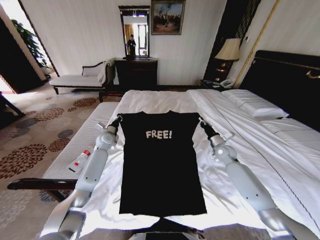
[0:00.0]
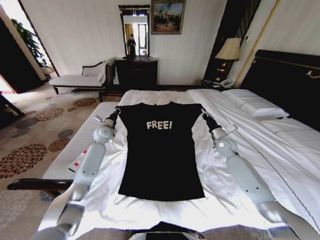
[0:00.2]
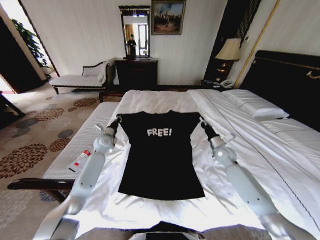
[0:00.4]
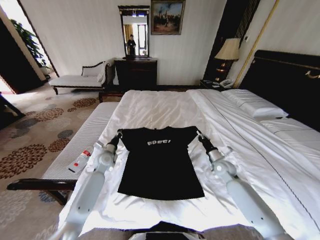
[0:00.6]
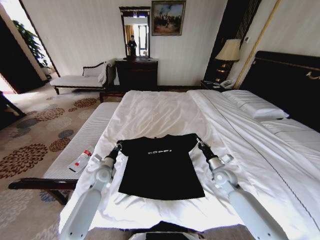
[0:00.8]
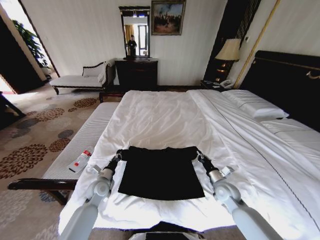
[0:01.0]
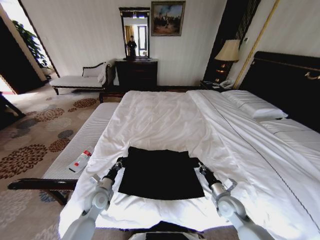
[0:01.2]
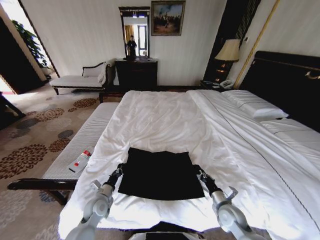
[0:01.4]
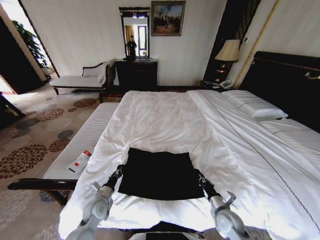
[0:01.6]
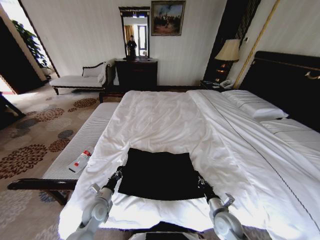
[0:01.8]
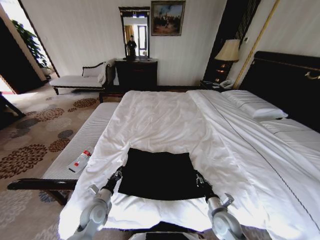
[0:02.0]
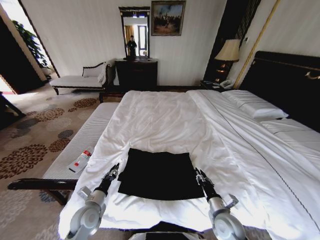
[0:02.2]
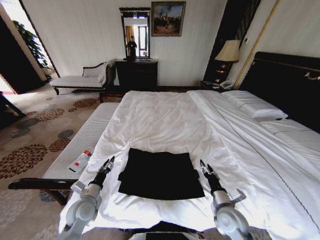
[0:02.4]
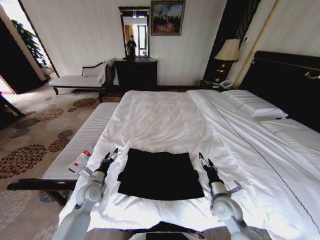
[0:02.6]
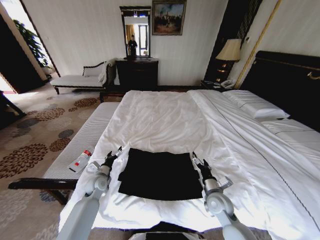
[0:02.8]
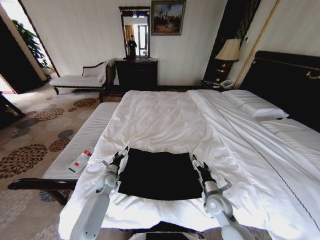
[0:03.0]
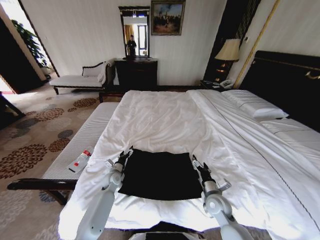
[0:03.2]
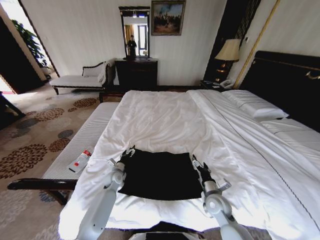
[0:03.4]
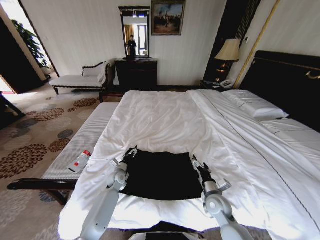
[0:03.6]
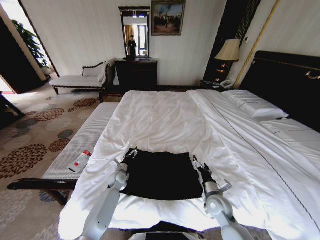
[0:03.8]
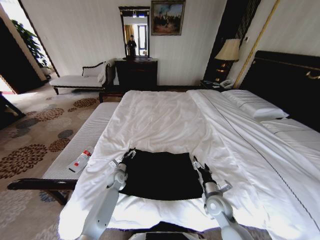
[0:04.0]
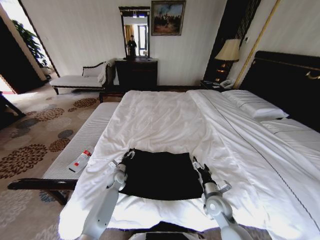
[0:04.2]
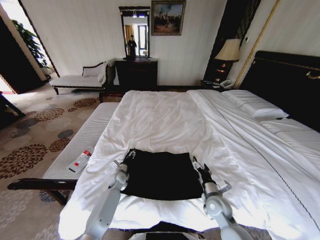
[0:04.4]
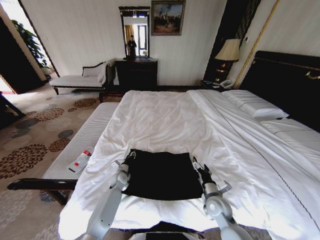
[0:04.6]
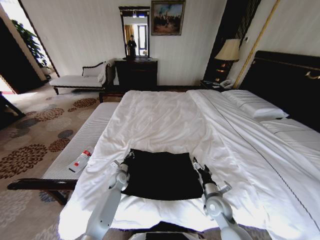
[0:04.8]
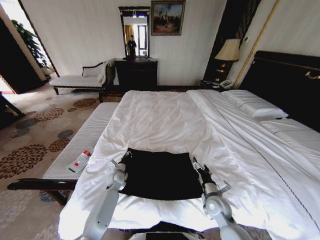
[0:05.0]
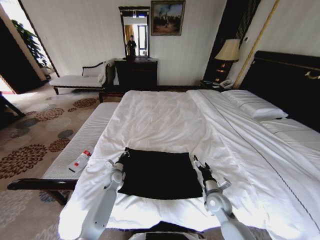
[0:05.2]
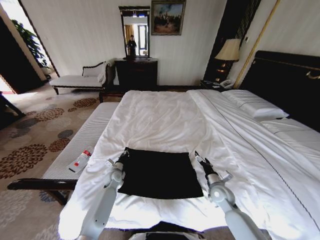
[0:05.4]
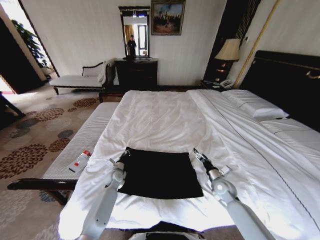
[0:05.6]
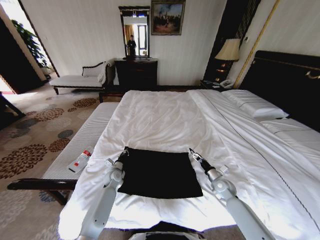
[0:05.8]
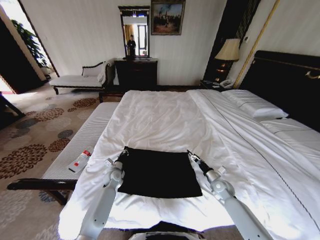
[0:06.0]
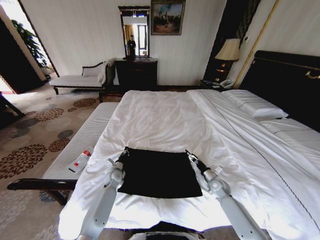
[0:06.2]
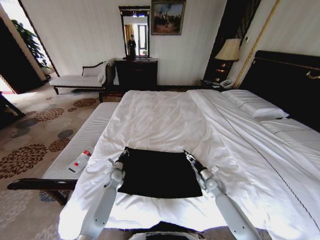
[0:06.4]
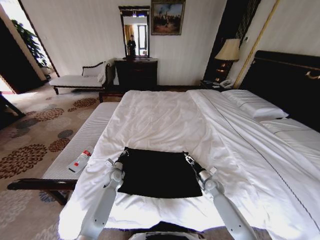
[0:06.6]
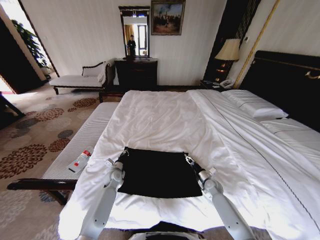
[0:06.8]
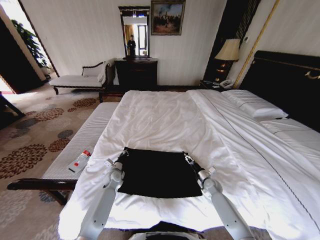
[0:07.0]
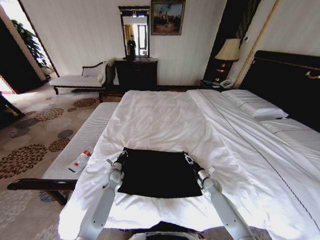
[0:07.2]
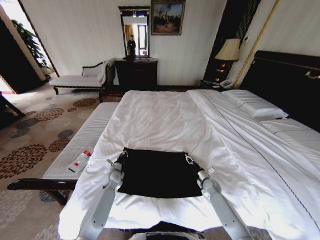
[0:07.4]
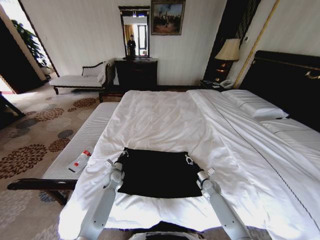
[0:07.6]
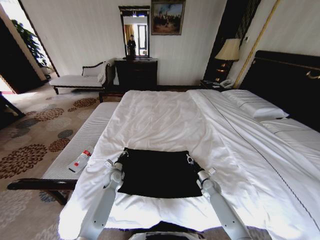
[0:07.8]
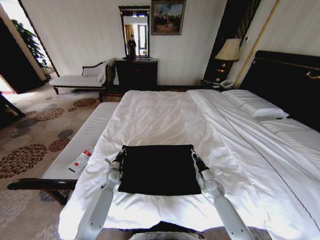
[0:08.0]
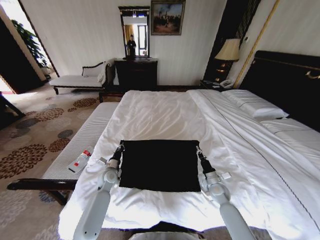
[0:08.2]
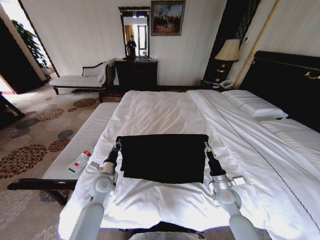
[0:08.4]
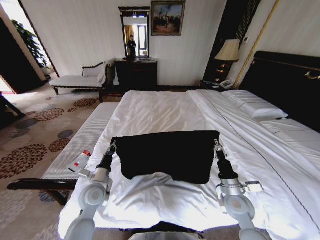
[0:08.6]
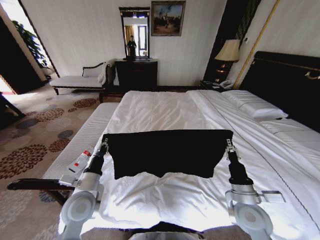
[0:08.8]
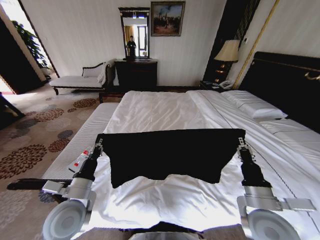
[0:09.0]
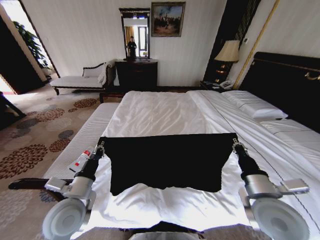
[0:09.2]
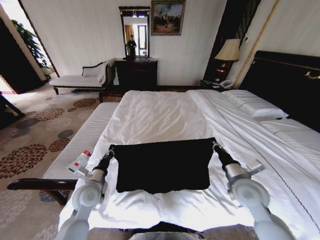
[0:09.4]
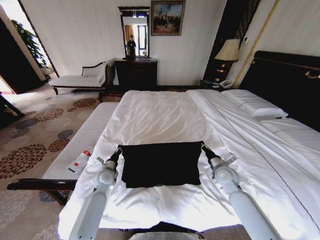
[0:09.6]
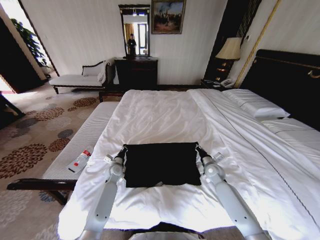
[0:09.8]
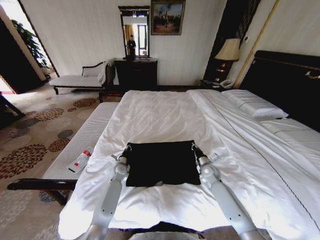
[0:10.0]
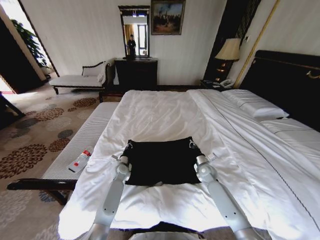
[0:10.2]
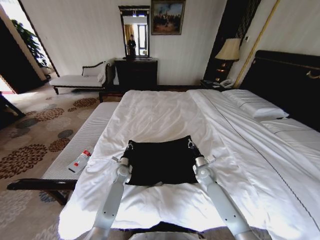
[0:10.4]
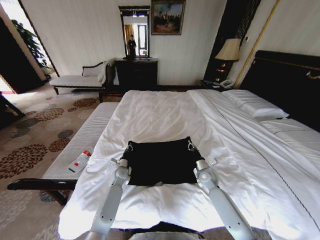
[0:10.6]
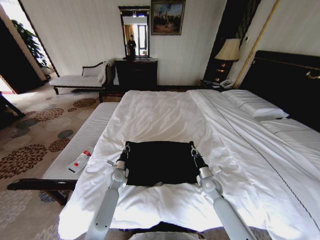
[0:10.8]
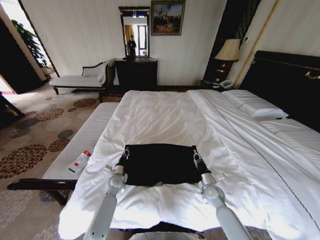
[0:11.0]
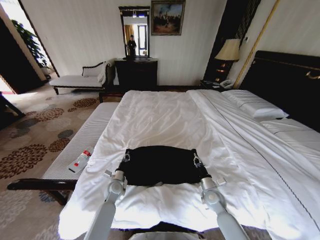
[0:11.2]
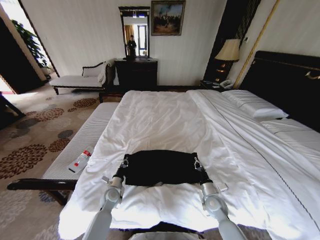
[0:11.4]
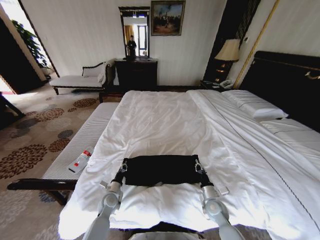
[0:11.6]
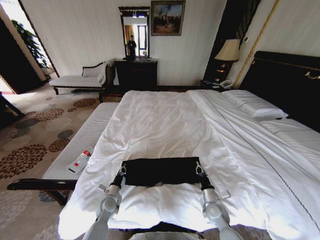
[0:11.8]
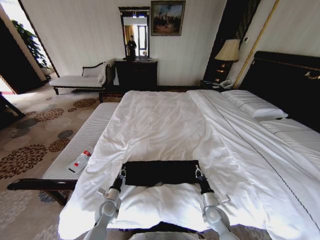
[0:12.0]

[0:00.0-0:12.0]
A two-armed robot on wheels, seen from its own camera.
Task of the whole recording: Fold the clothes on the bed.
0:00.0 to 0:01.6: The two grippers go about 30 cm backward and downward.
0:01.6 to 0:03.0: The left gripper travels forward by approximately 10 cm, and opens up, while the right gripper shifts by some 10 cm, and opens.
0:03.0 to 0:04.4: The left gripper ends up roughly 5 cm from where it was, and closes.
0:04.4 to 0:06.0: The left gripper closes its fingers. The right gripper is displaced to the right, forward and downward by roughly 15 cm.
0:06.0 to 0:07.6: The right gripper shifts some 5 cm downward, and closes its fingers.
0:07.6 to 0:09.0: Both grippers travel together upward and backward, about 35 cm.
0:09.0 to 0:10.4: Both grippers move forward and downward, about 35 cm.
0:10.4 to 0:12.0: Both grippers move backward, approximately 20 cm.

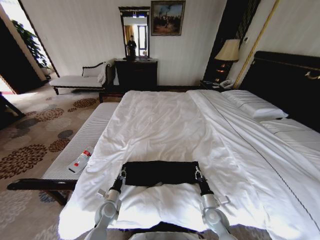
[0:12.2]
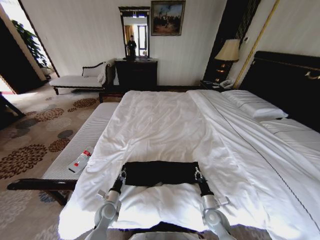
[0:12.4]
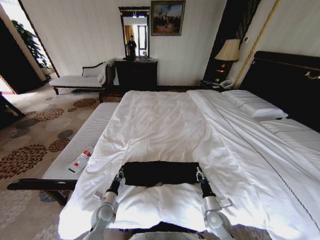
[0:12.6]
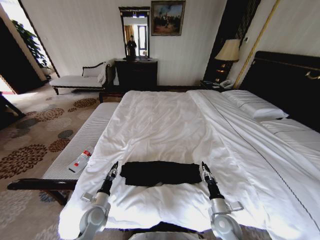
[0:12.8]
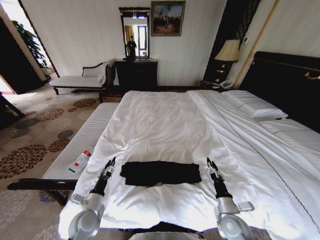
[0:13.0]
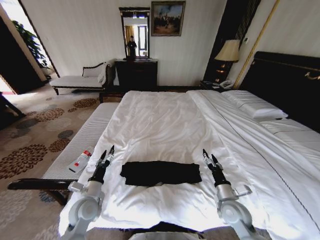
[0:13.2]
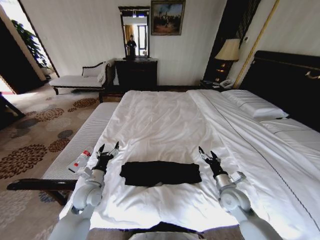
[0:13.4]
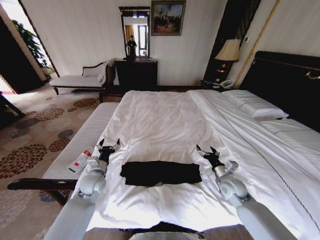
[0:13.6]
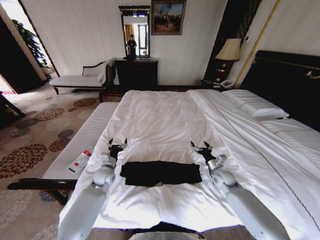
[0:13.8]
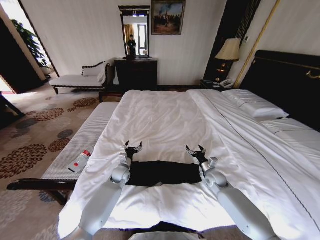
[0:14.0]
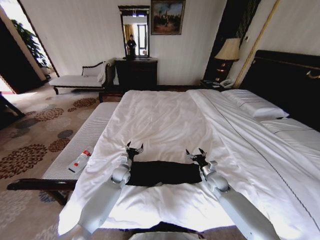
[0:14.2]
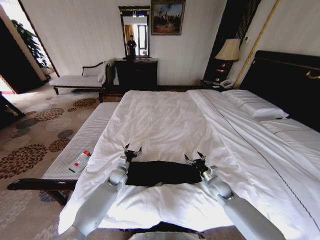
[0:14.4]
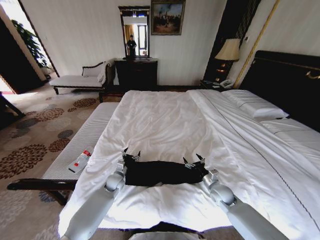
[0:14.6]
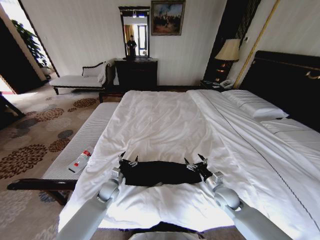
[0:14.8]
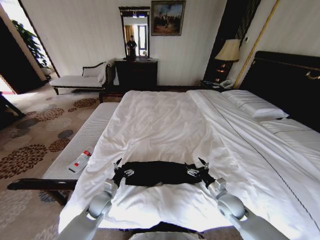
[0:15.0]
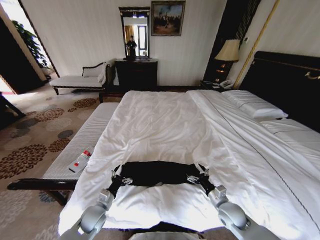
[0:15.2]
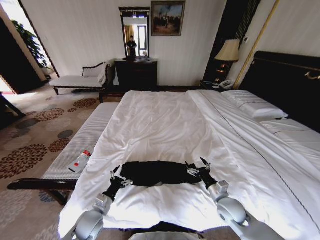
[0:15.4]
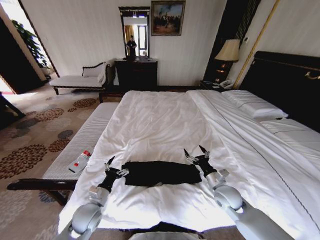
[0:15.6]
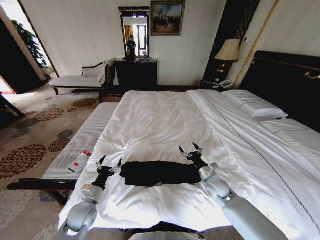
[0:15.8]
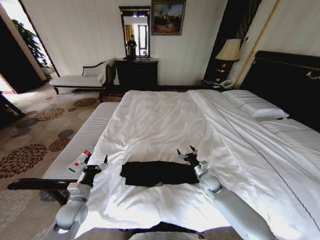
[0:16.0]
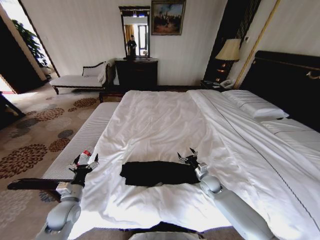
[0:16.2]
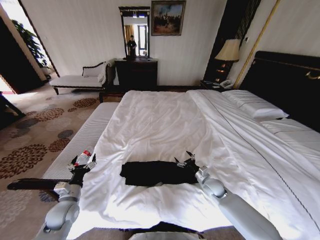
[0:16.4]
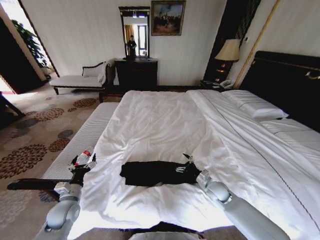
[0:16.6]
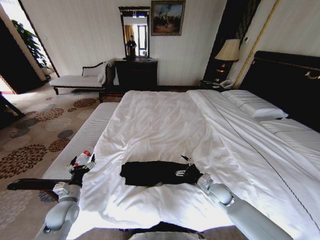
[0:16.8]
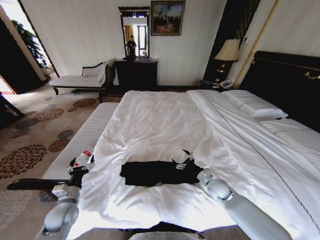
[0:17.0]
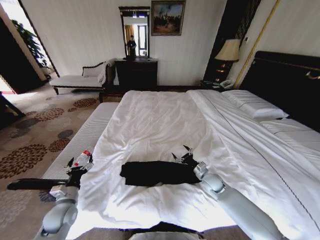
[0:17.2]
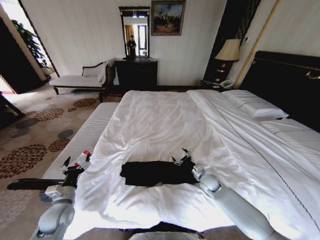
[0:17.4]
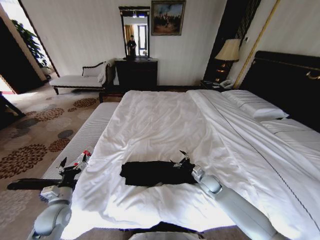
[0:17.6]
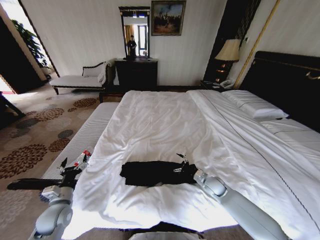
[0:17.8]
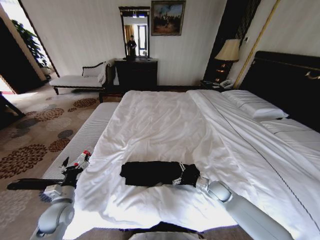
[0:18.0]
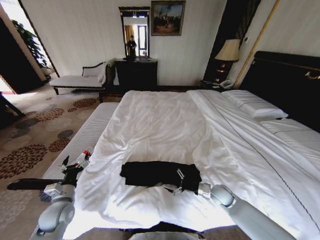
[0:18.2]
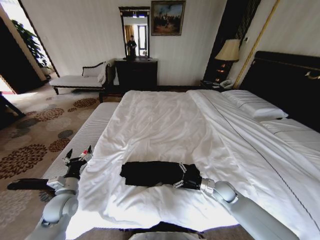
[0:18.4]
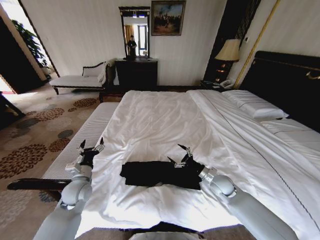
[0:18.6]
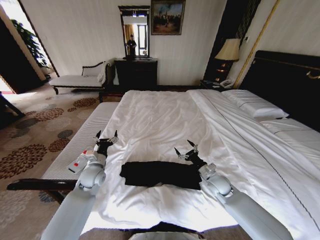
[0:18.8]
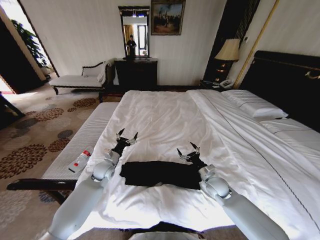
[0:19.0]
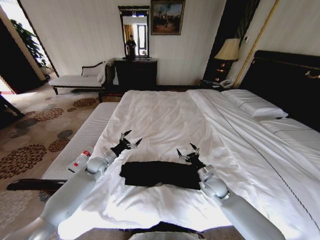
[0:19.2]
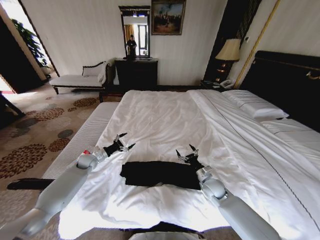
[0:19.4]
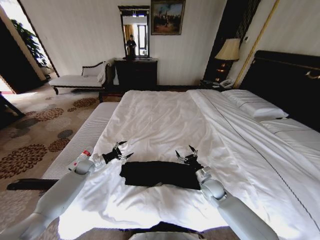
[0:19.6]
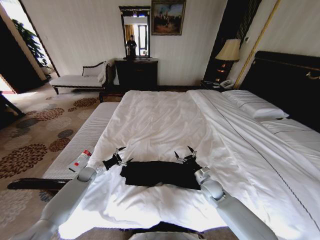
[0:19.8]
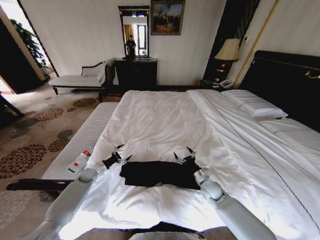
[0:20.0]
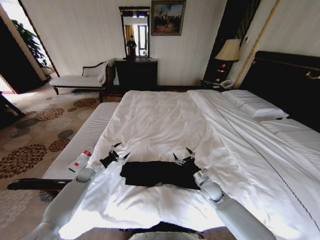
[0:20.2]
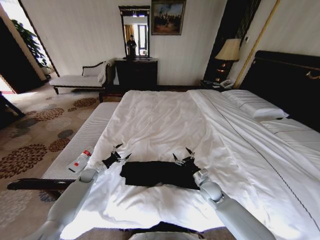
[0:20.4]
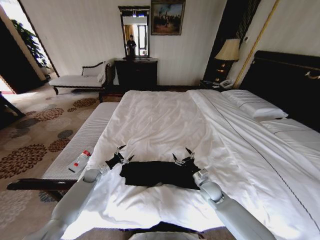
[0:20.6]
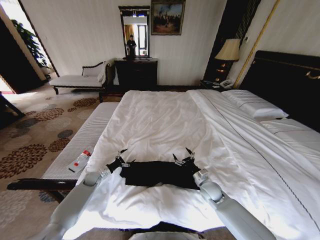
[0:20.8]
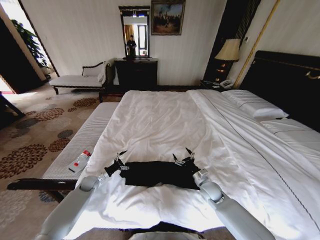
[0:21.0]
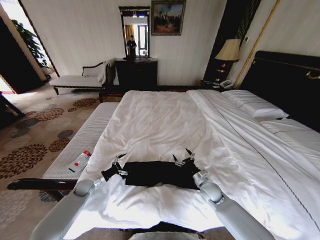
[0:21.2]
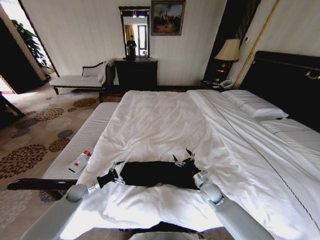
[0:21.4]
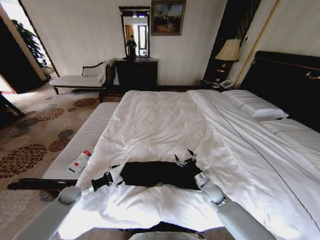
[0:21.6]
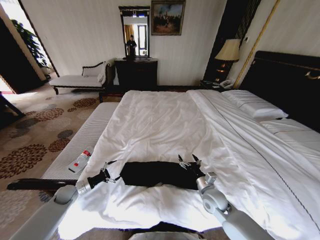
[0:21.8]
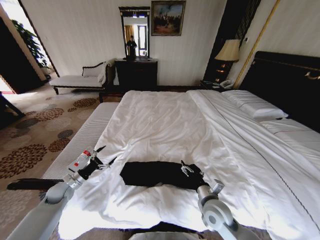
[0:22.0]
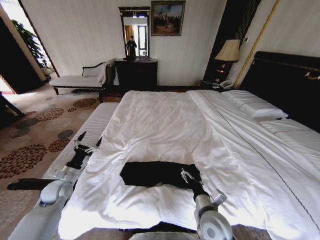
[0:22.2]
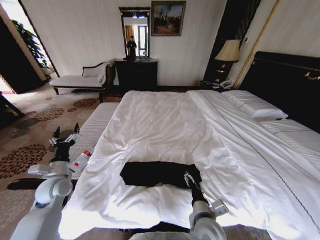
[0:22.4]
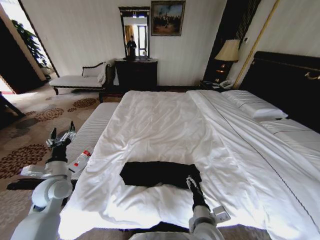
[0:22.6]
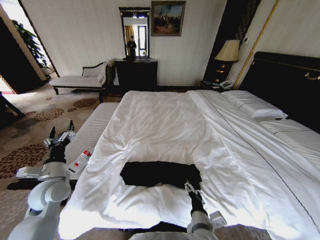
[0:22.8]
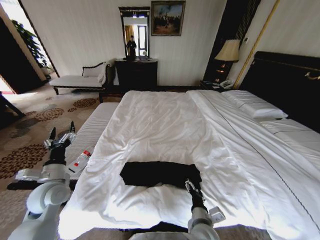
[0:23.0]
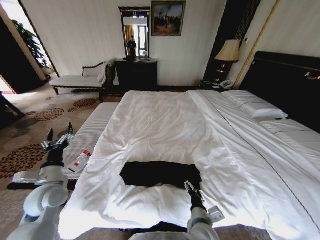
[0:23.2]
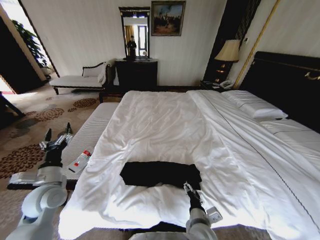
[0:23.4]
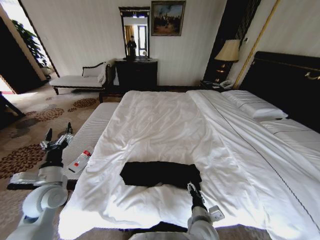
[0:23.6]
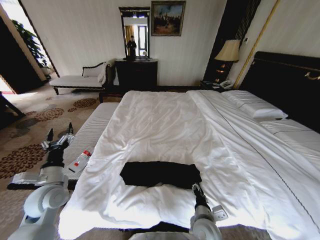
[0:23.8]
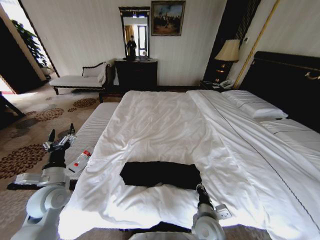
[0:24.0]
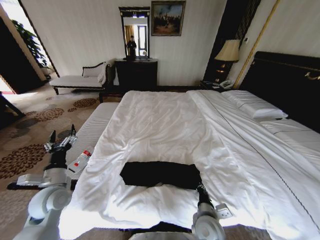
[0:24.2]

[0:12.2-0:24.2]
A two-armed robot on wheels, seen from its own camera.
Task of the whole recording: Fold the clothes on the bed.
0:12.2 to 0:13.8: The left gripper heads forward and upward, covering about 20 cm, and opens up. Meanwhile the right gripper moves forward, upward and to the right, approximately 20 cm, and opens up.
0:13.8 to 0:15.2: The two grippers go about 15 cm backward.
0:15.2 to 0:16.6: The right gripper travels forward by about 10 cm, while the left gripper shifts approximately 10 cm to the left and upward.
0:18.2 to 0:19.8: The left gripper heads forward and downward, covering some 25 cm.
0:19.8 to 0:21.2: The left gripper heads backward, covering approximately 5 cm.
0:21.2 to 0:22.6: The right gripper is displaced backward, to the left and upward by about 25 cm. Meanwhile the left gripper moves upward, roughly 20 cm.
0:22.6 to 0:24.2: The right gripper ends up approximately 5 cm from where it was, and closes its fingers.
